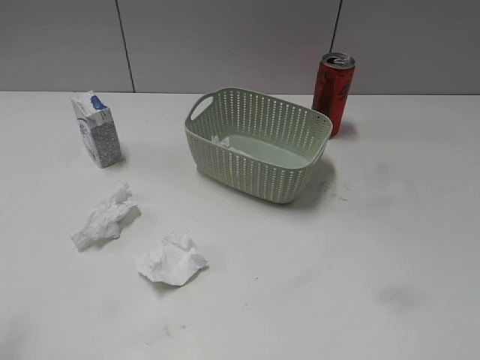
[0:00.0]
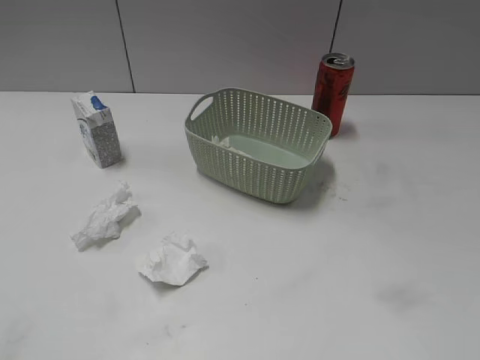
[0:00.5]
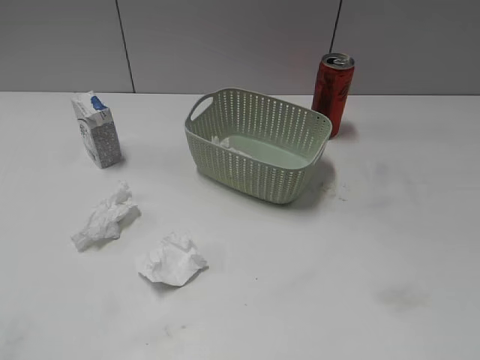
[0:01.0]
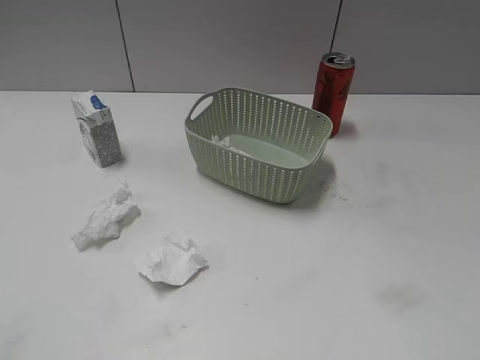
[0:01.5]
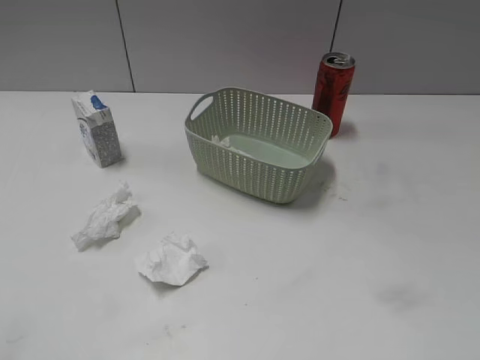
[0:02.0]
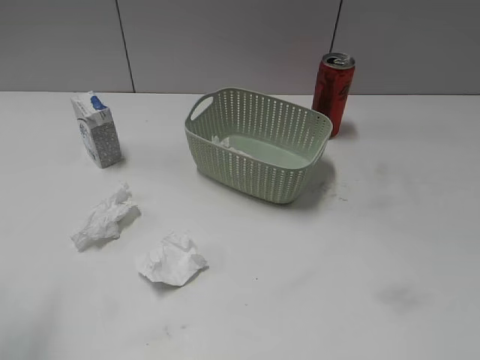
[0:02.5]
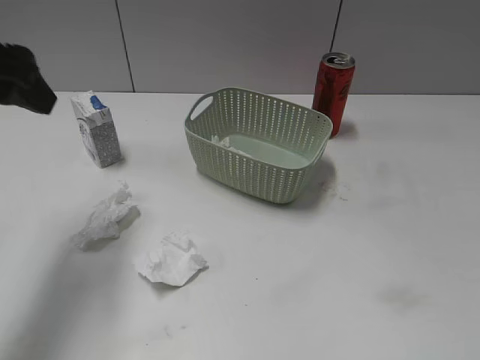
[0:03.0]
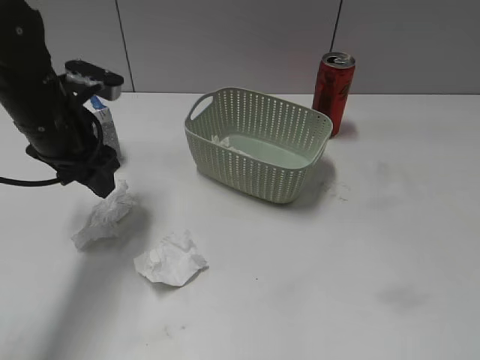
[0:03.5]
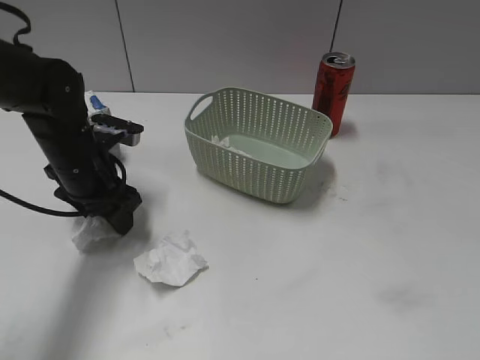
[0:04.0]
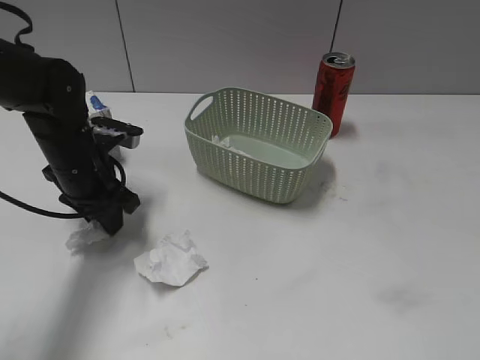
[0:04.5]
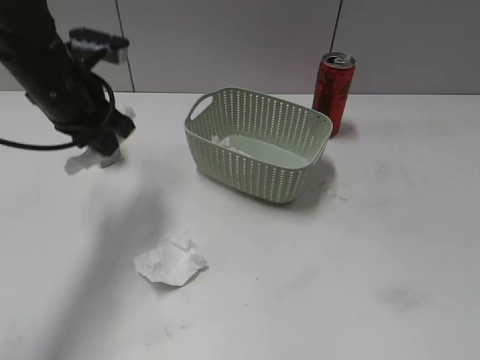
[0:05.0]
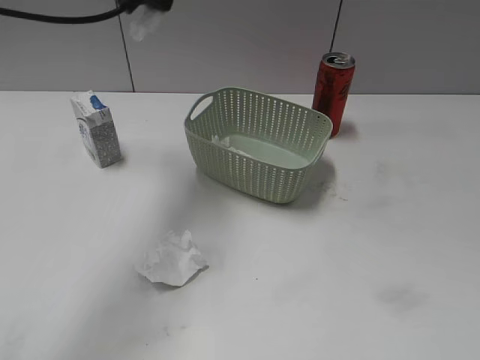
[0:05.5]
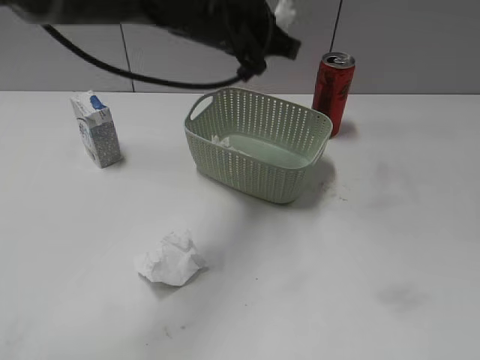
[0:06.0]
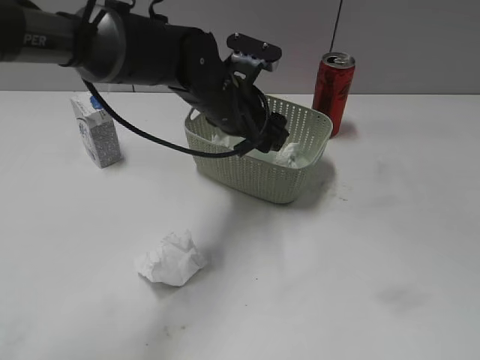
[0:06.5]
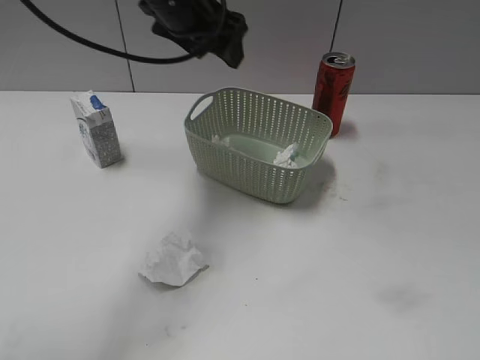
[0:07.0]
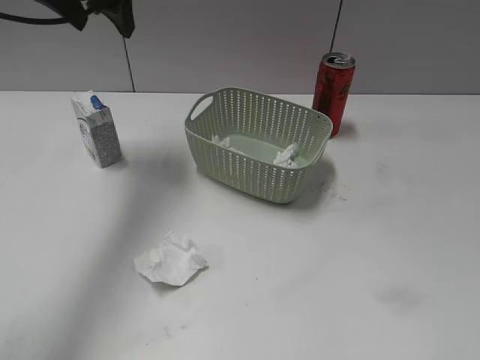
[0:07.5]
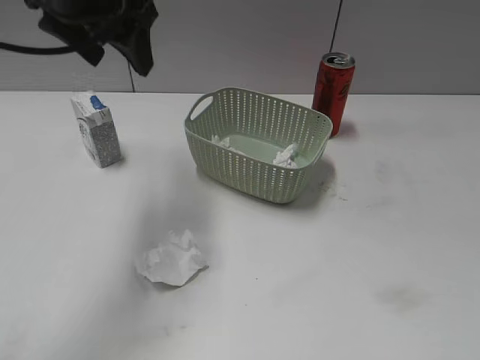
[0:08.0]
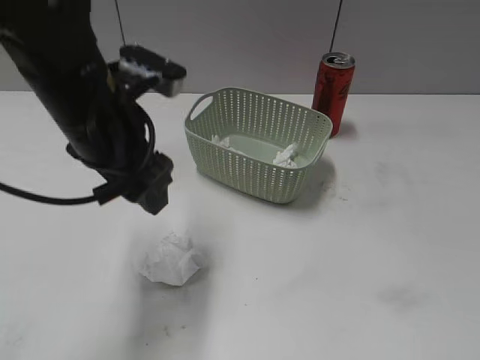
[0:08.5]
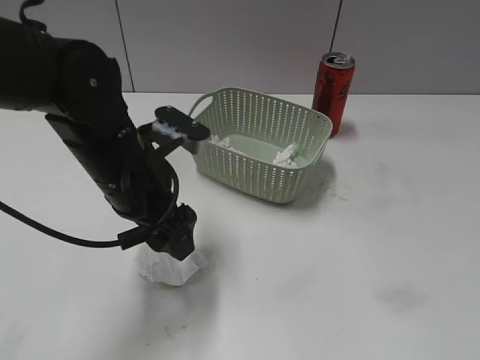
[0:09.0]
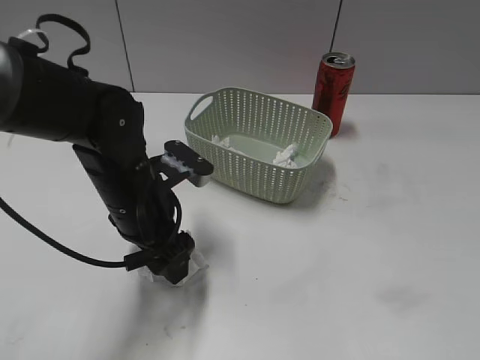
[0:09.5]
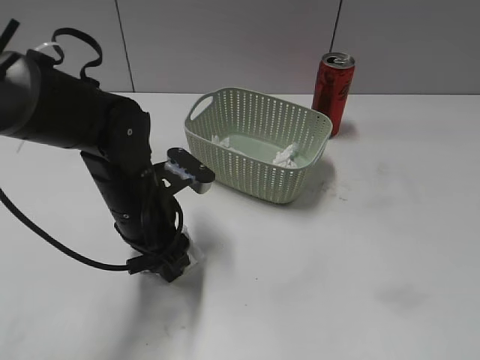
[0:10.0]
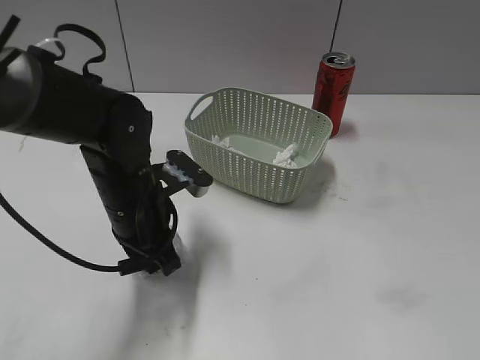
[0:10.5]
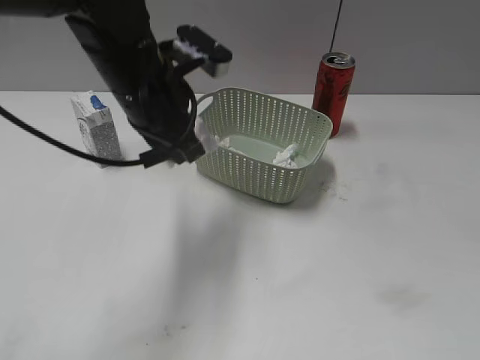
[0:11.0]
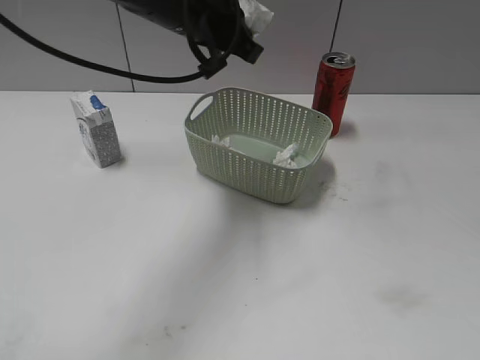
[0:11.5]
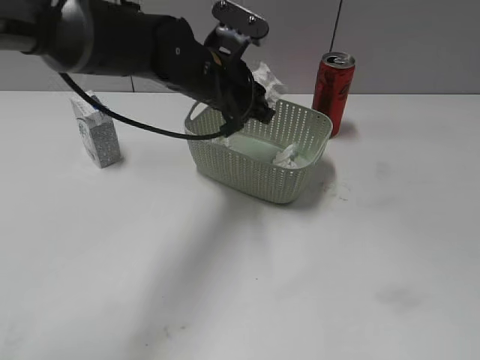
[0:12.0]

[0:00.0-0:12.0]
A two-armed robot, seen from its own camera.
Step, 0:00.0 to 0:04.5: Grasp the waste paper with left gripper.
Step, 0:05.0 to 0:06.5: Place the waste paper in the basket with left gripper.
Step, 0:07.0 to 0:10.0: Grasp the waste paper with left gripper.
0:02.0 to 0:04.0: The left gripper shifts roughly 40 cm forward, downward and to the right.
0:04.0 to 0:06.0: The left gripper shifts about 20 cm to the right and upward, and closes up.
0:06.0 to 0:08.0: The left gripper travels to the left and upward by about 15 cm, and opens up.
0:08.0 to 0:10.0: The left gripper goes approximately 20 cm downward.
0:10.0 to 0:12.0: The left gripper moves forward, upward and to the right, roughly 15 cm, and closes, then reopens.

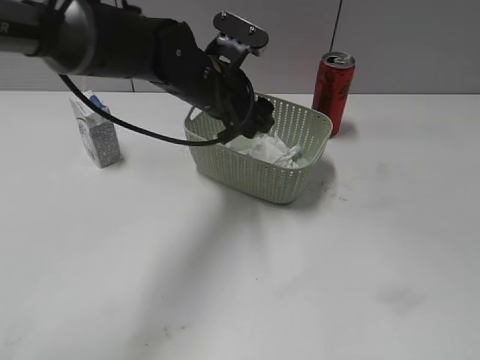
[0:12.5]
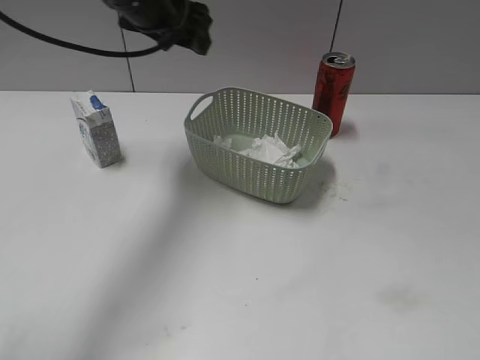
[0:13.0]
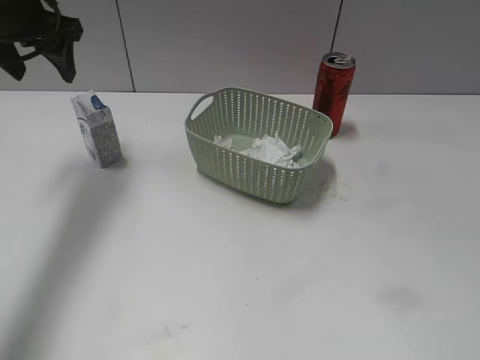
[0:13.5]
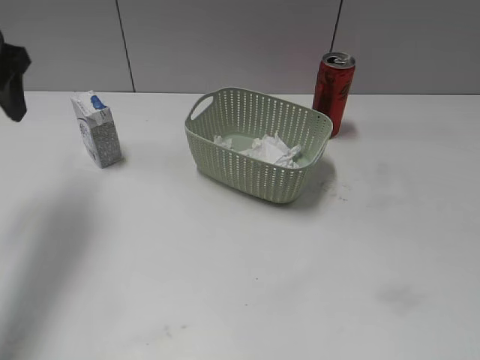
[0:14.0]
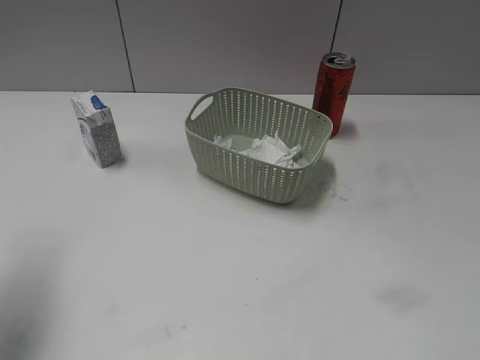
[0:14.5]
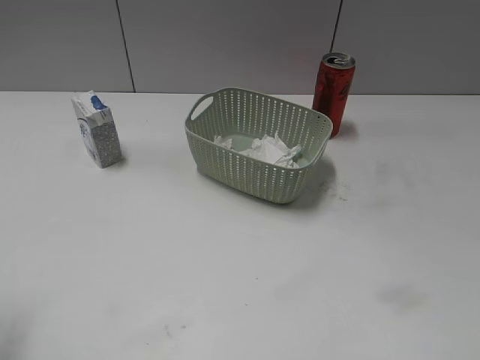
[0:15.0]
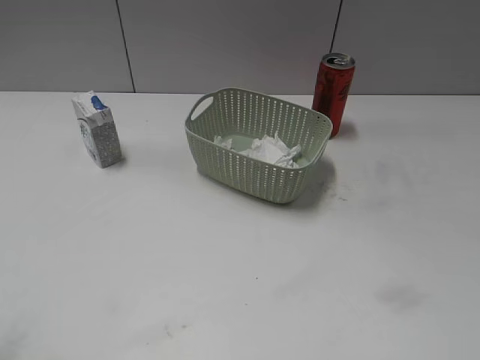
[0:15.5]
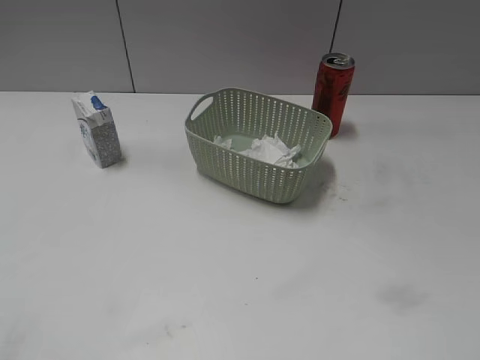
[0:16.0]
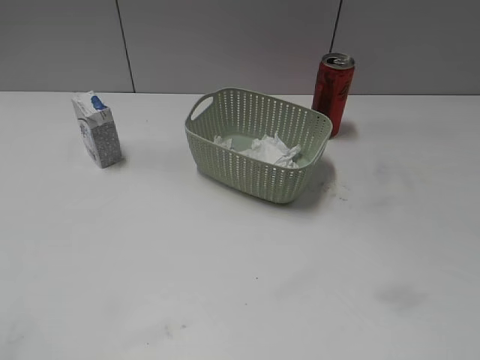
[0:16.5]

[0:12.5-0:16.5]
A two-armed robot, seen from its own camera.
0:12.5 to 0:14.5: The left gripper moves to the left and backward, roughly 30 cm.
0:14.5 to 0:16.5: The left gripper travels backward by roughly 20 cm.

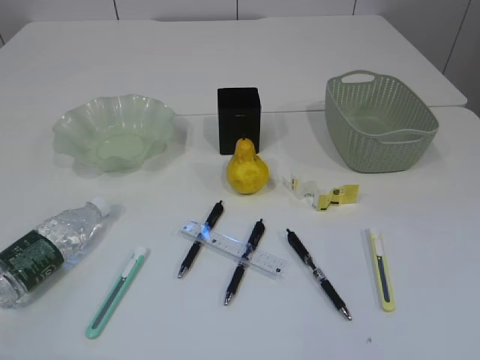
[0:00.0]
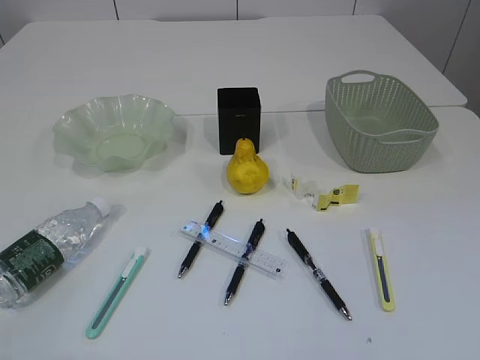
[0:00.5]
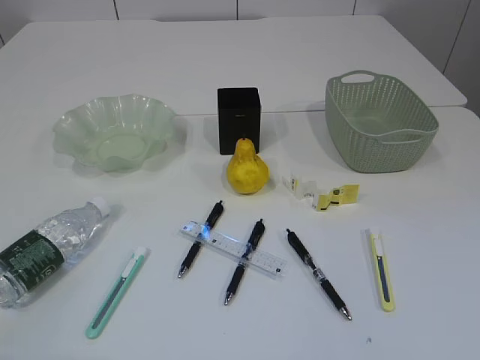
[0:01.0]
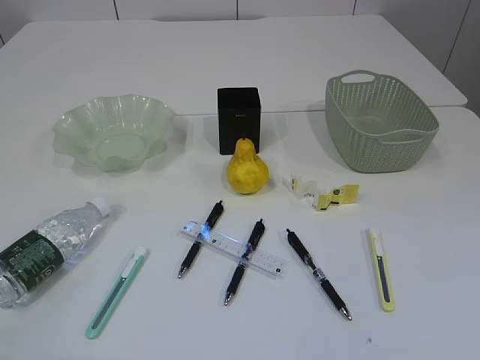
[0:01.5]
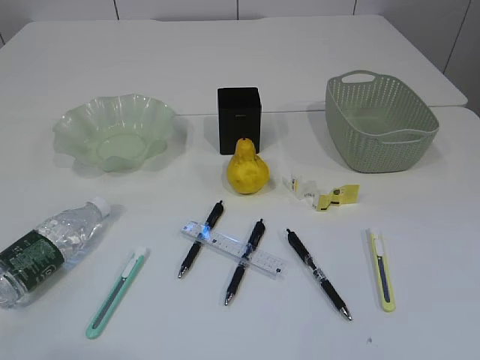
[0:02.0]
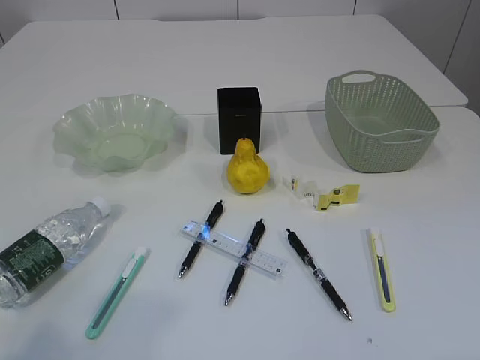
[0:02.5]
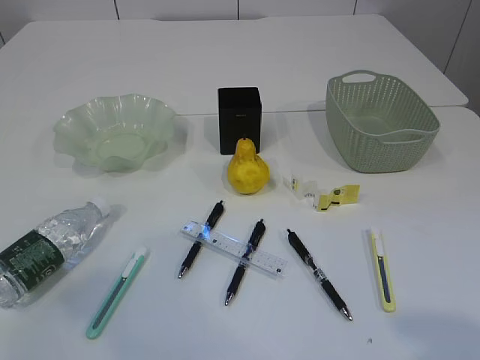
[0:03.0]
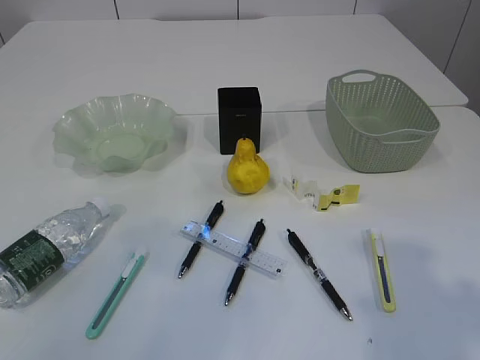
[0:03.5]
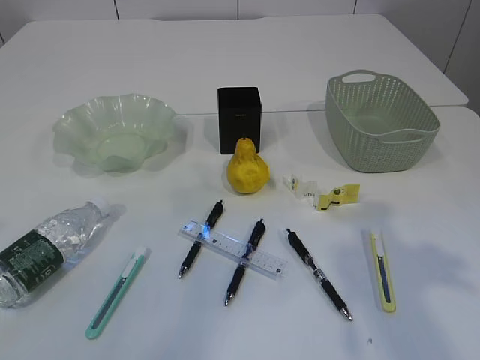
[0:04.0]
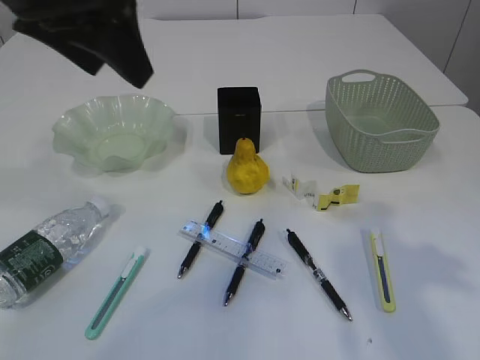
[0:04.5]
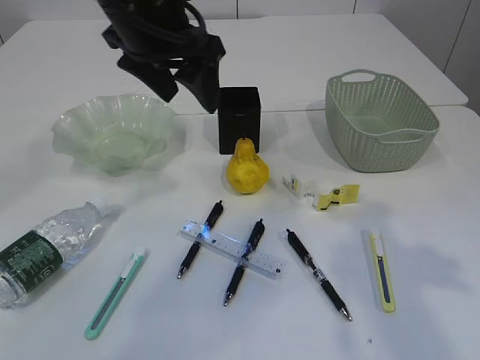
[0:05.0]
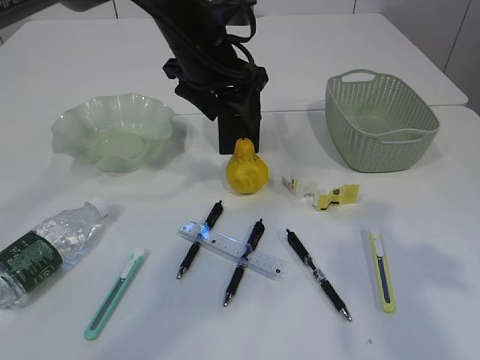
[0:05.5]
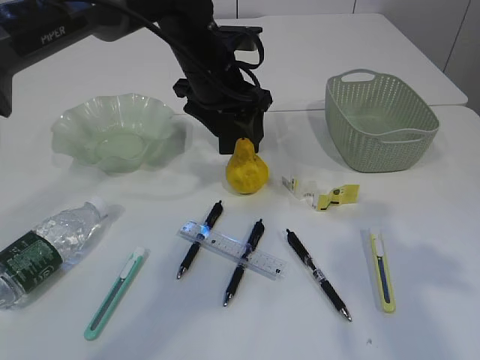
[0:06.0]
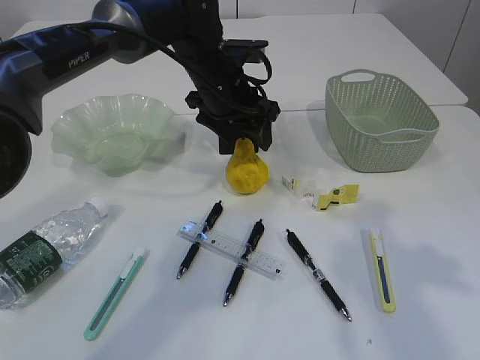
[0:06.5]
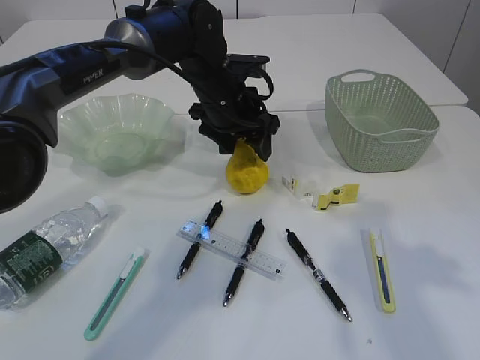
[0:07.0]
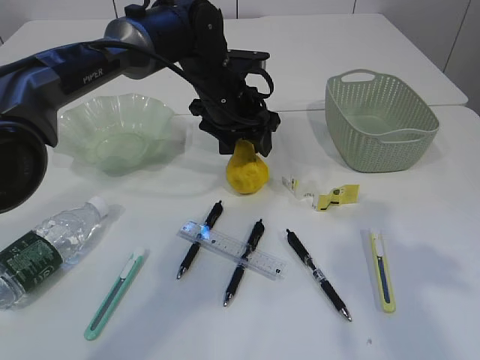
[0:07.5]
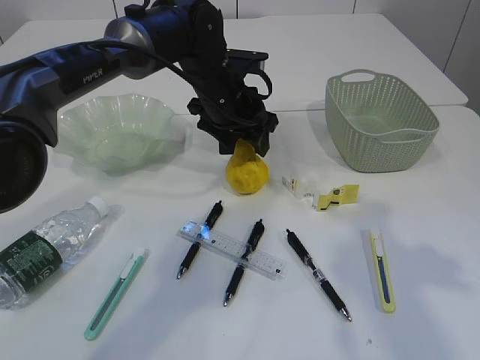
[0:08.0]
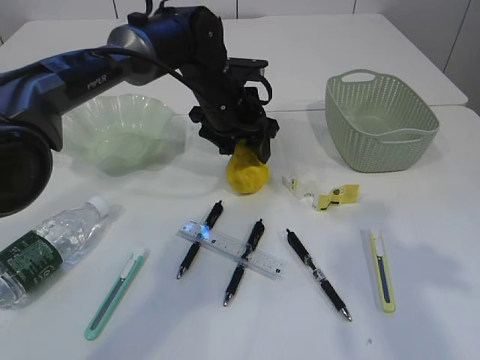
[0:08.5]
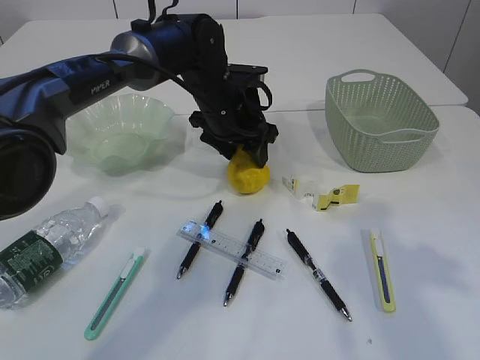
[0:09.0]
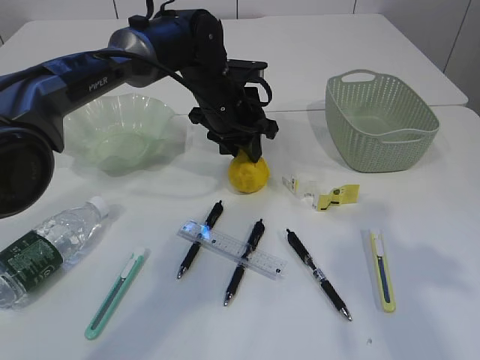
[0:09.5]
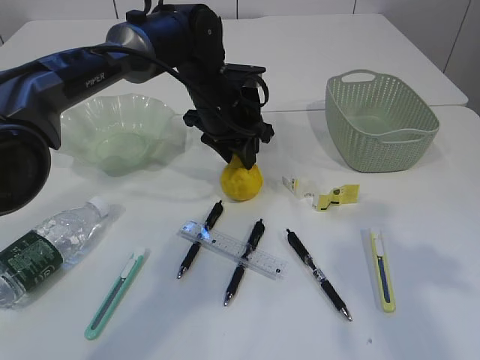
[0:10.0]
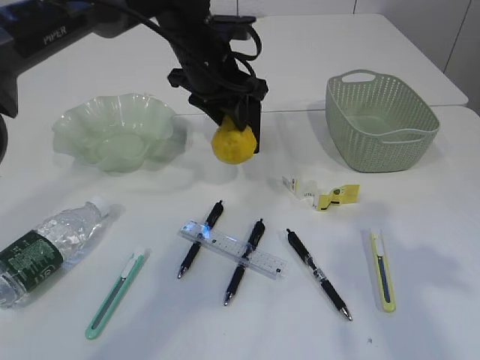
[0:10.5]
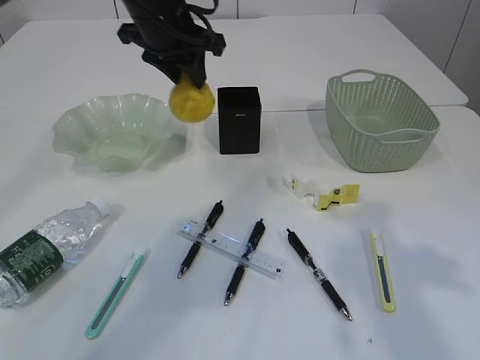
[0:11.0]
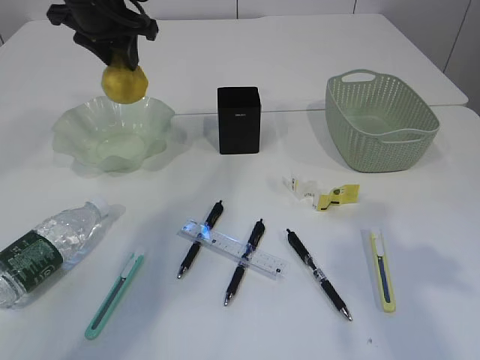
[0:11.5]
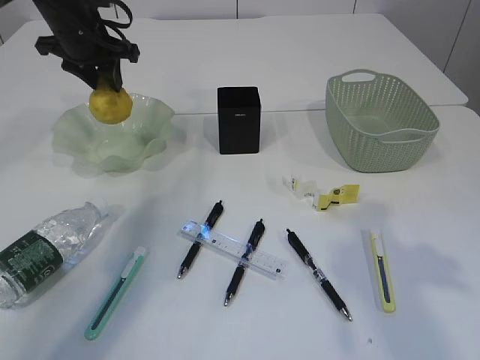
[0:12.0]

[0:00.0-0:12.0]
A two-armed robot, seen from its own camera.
0:02.0 to 0:04.0: The left gripper is displaced forward and upward by approximately 25 cm. Meanwhile the right gripper travels forward by some 20 cm.
0:04.0 to 0:06.0: The left gripper heads forward, to the right and downward, covering some 35 cm.
0:06.0 to 0:08.0: The left gripper ends up about 5 cm from where it was.
0:08.0 to 0:10.0: The left gripper closes.
0:10.0 to 0:12.0: The left gripper goes some 20 cm to the left and upward.
